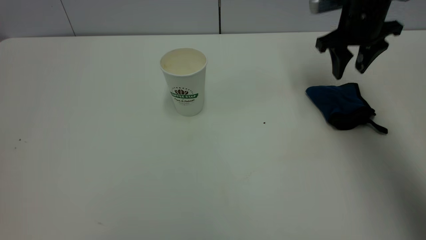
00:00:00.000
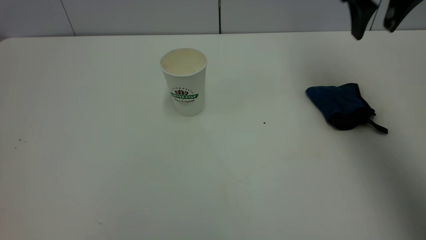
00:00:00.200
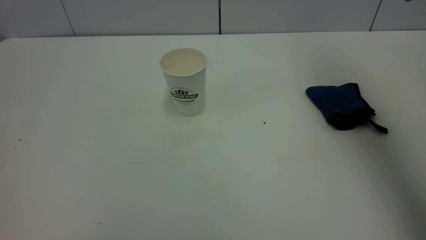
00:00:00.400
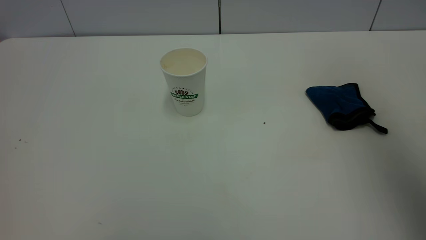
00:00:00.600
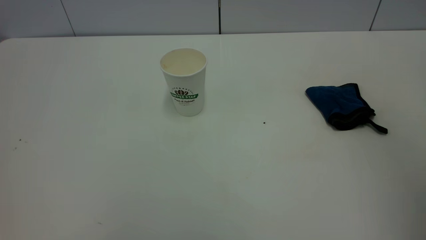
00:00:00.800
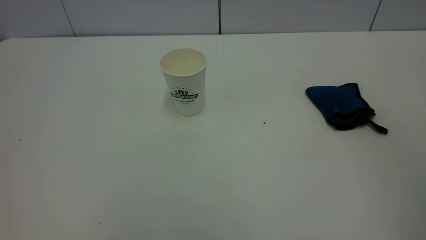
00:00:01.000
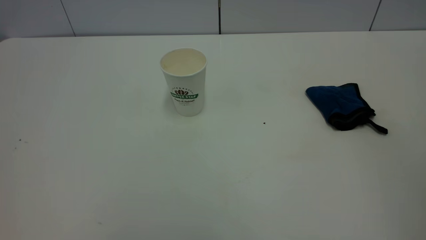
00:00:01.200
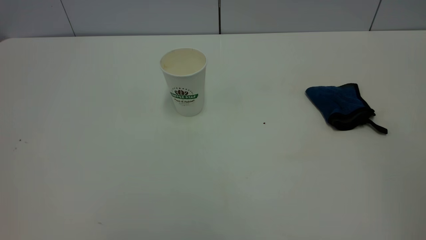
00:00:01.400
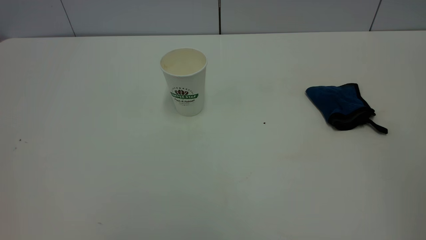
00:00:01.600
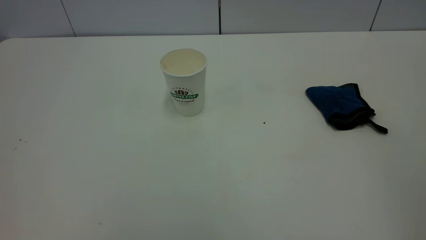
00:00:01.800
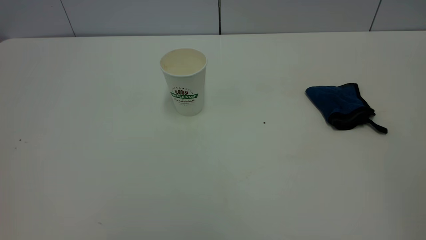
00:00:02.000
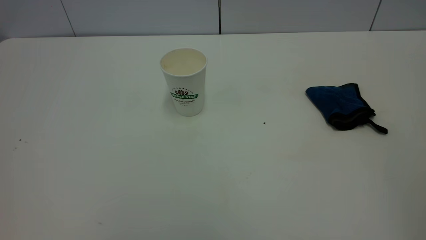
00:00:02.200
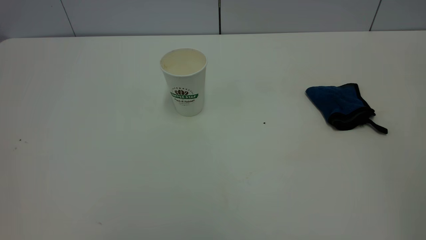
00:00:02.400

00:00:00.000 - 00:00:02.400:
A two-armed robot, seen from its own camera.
Task of the whole recording: the left gripper pick up the fallen cup and place it upright, the right gripper grasp the blue rag and wipe the tea stain on the table, the right gripper put the blue rag back in its original position.
00:00:00.000 - 00:00:01.200: The right gripper moves backward and upward, about 50 cm.

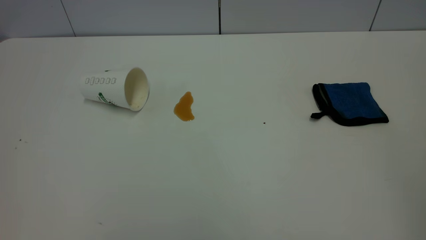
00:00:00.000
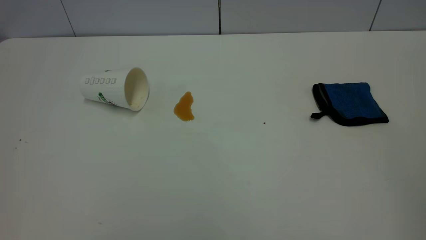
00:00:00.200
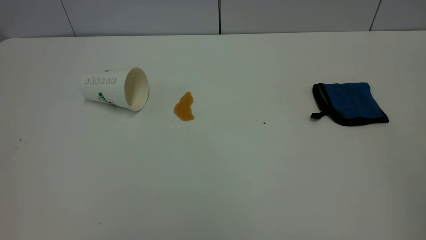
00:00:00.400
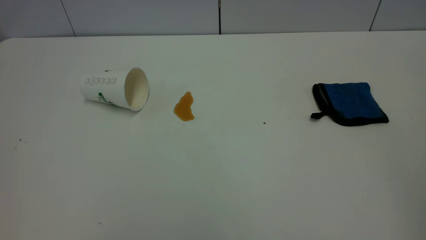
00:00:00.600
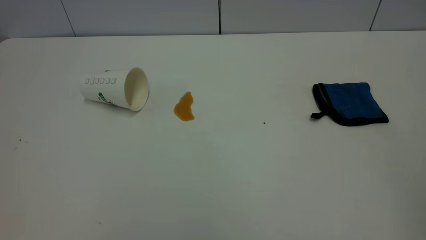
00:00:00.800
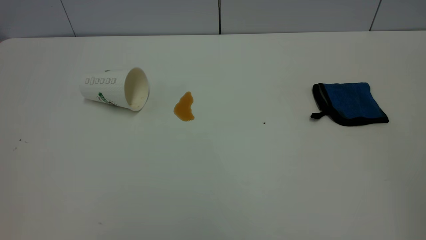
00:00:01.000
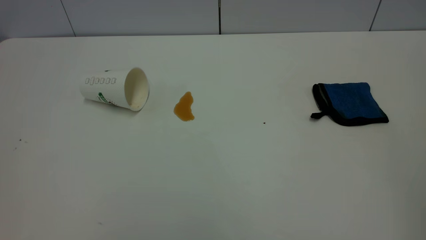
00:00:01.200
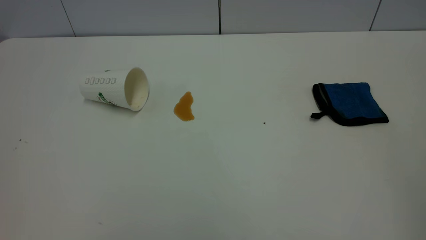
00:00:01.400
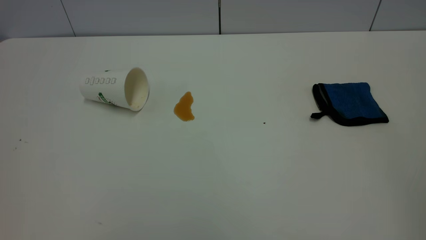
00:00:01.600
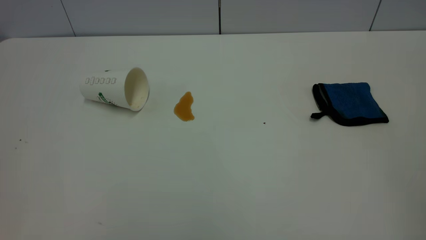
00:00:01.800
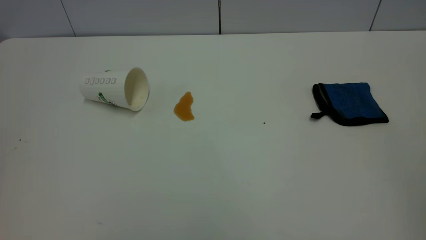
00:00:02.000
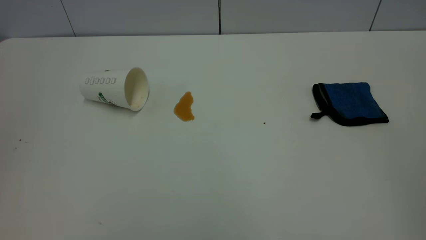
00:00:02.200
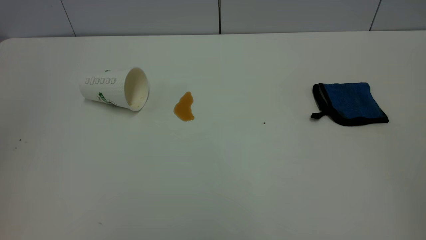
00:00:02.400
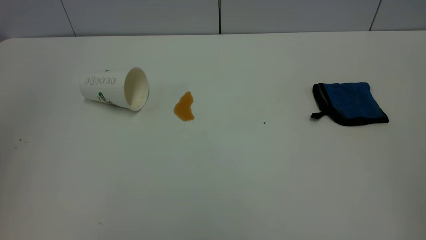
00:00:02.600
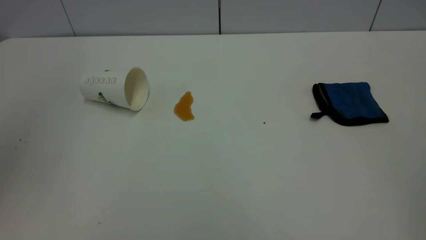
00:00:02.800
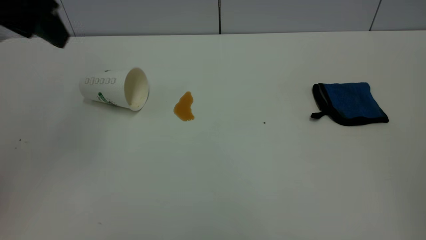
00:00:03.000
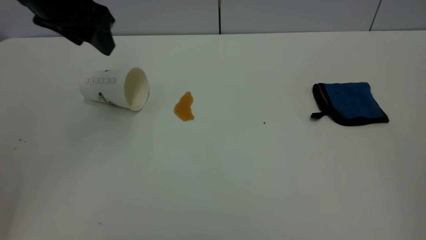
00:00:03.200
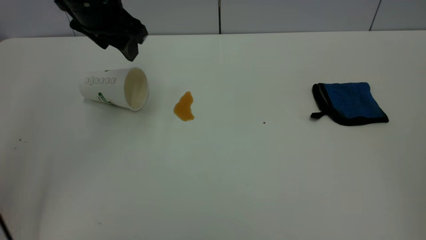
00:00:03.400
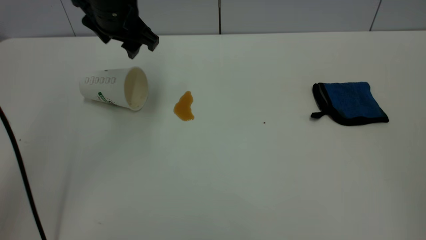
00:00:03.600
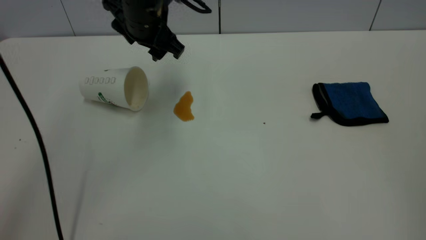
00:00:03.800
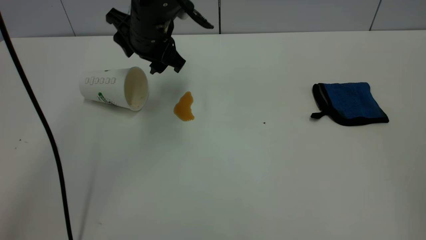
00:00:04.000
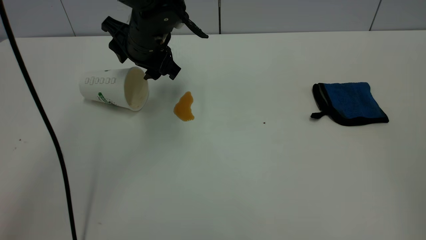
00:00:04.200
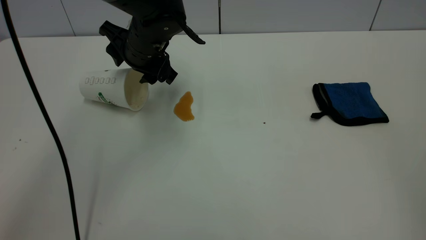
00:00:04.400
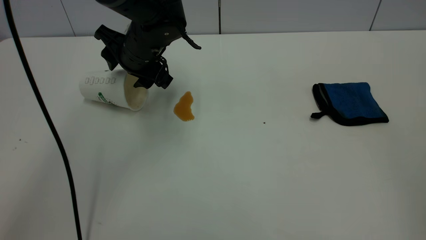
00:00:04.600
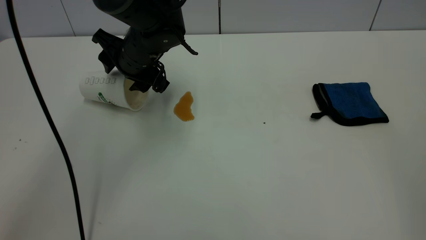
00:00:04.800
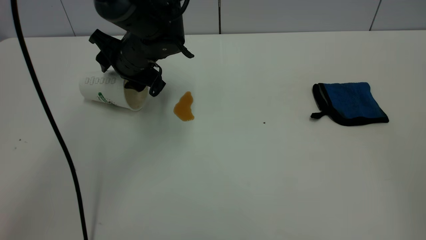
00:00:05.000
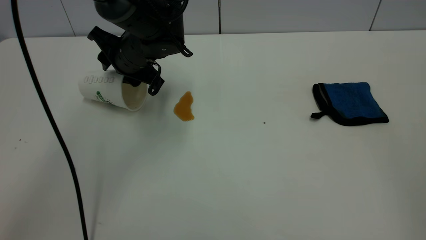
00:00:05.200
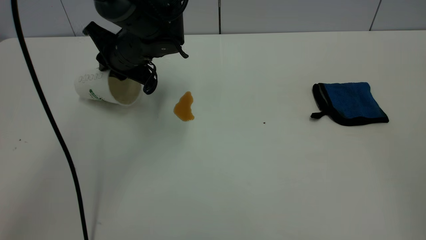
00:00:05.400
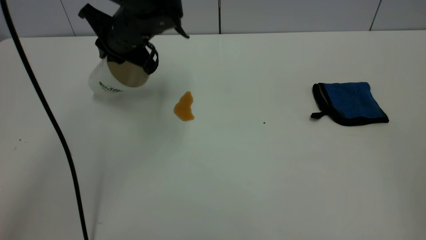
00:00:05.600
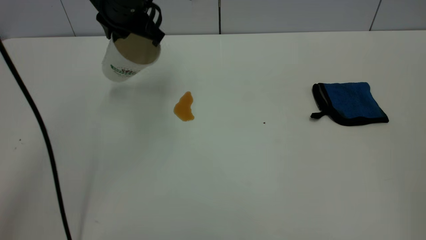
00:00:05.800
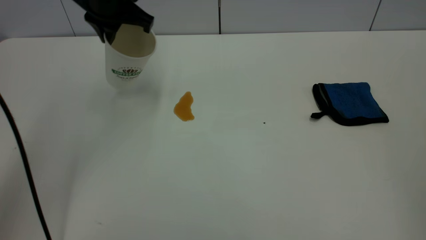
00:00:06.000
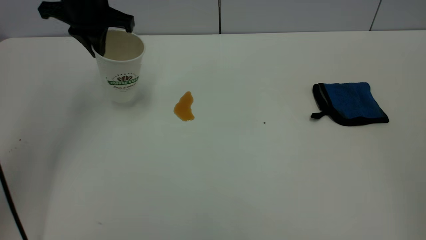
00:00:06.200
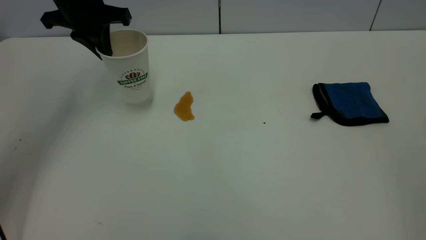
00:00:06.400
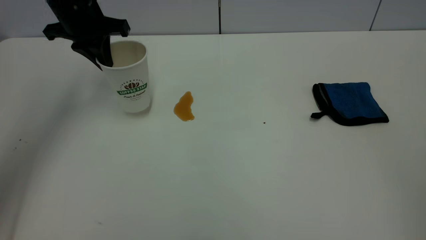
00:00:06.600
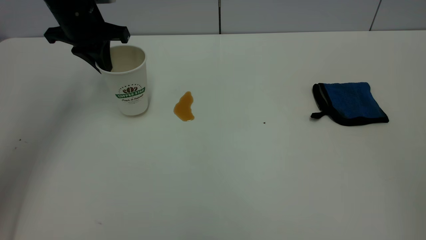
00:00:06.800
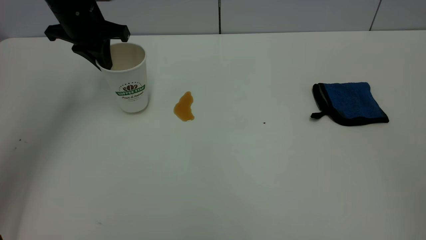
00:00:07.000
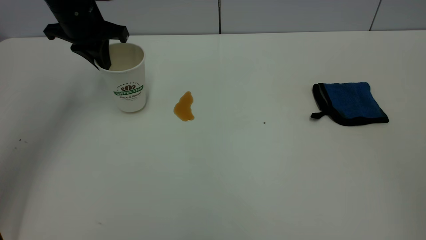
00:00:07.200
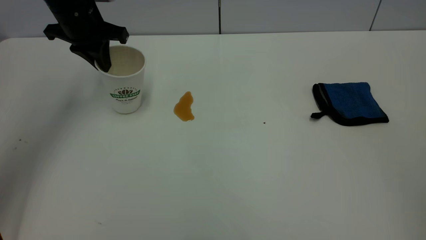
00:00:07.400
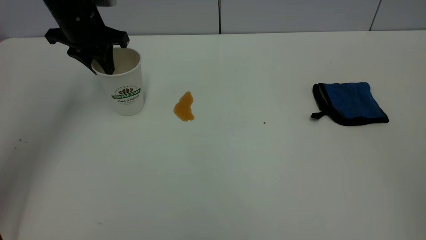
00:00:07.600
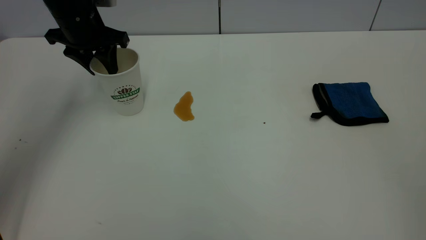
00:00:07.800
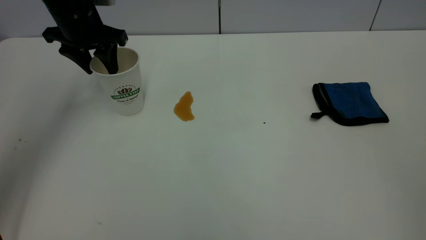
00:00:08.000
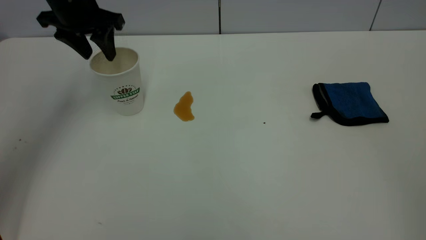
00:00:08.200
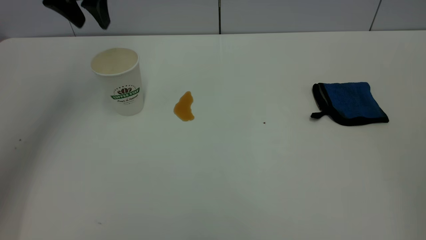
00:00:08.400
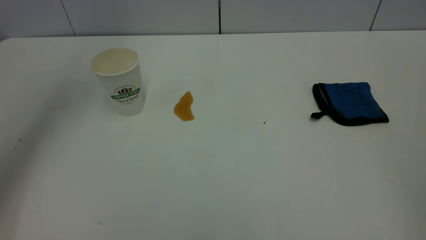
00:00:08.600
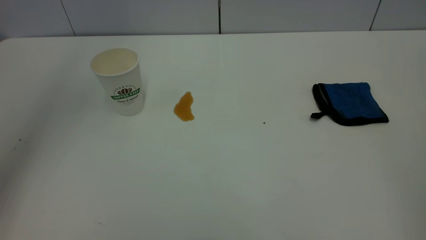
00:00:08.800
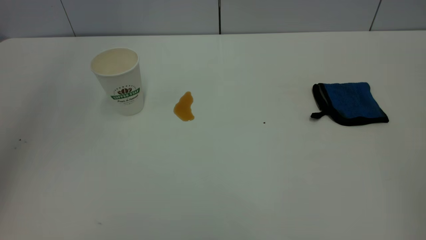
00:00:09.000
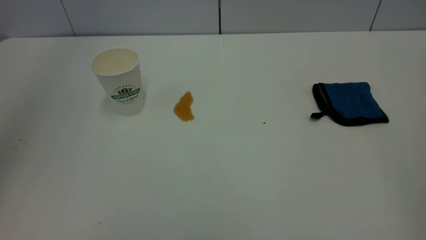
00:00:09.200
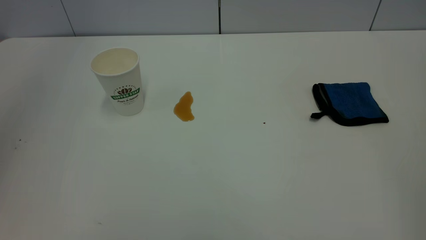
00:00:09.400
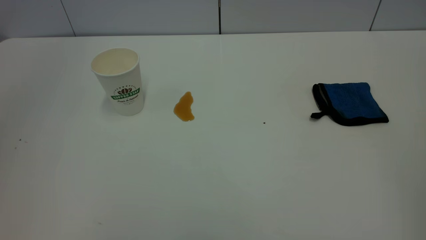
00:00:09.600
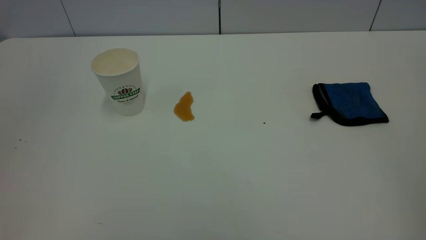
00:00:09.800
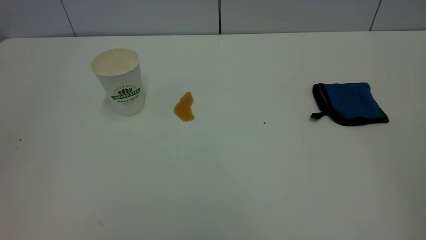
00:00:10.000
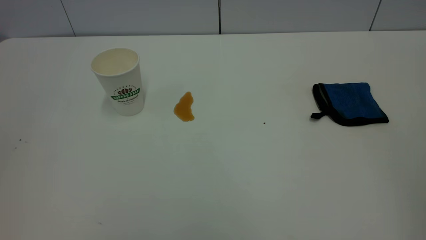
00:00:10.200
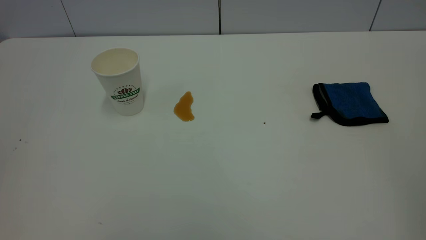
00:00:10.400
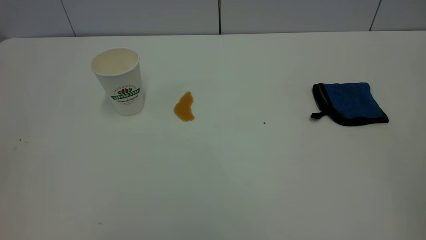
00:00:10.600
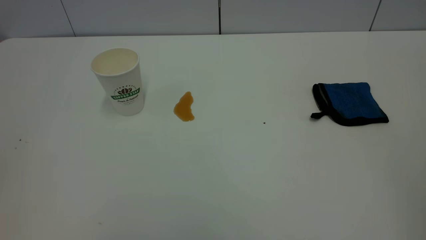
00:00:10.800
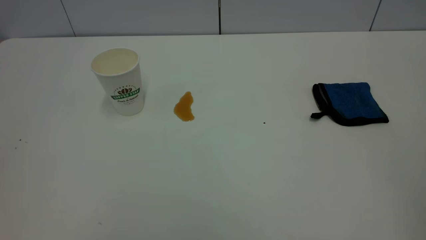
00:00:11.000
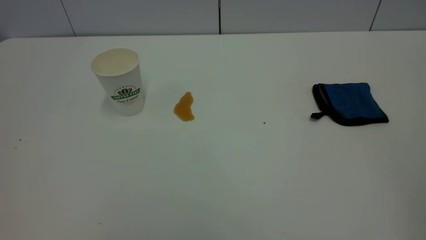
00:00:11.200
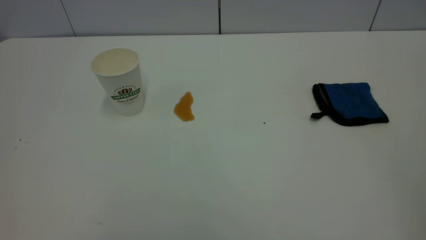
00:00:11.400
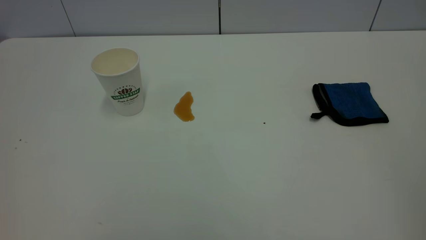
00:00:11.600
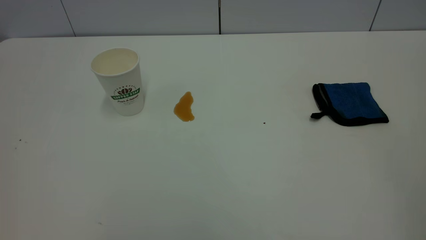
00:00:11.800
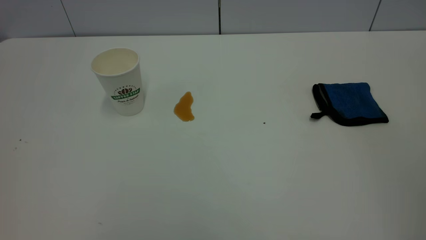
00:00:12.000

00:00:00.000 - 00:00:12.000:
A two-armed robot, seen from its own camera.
Task of the whole recording: the left gripper pick up the fallen cup and place it upright, the right gripper grasp the blue rag and wipe the tea stain on the table, the right gripper put the blue rag back in its original position.
Step, 00:00:00.000 - 00:00:08.200: Stand the paper cup upright.
00:00:00.000 - 00:00:01.600: Both grippers stay about where they are.
00:00:01.600 - 00:00:03.000: The left gripper moves forward, approximately 35 cm, and opens its fingers.
00:00:03.000 - 00:00:04.400: The left gripper moves downward, to the right and forward, approximately 25 cm.
00:00:04.400 - 00:00:06.000: The left gripper shifts some 10 cm upward and to the left, and closes up.
00:00:06.000 - 00:00:07.600: The left gripper is displaced to the left by approximately 5 cm, and opens.
00:00:07.600 - 00:00:09.000: The left gripper is displaced upward and backward by roughly 30 cm, and opens up.

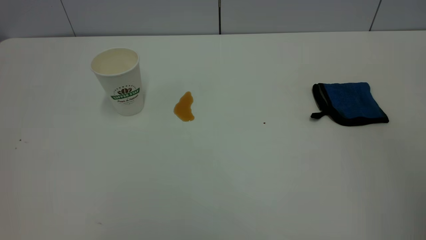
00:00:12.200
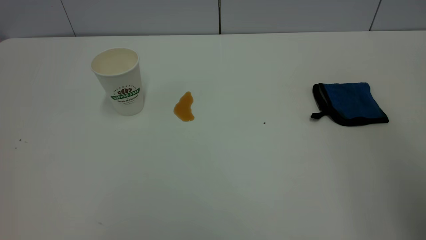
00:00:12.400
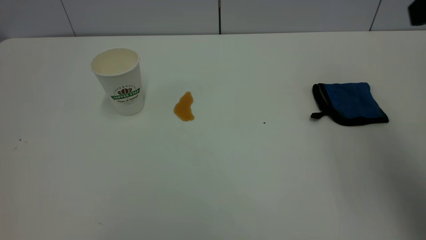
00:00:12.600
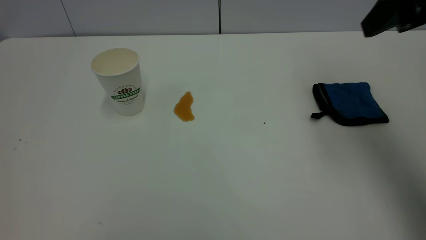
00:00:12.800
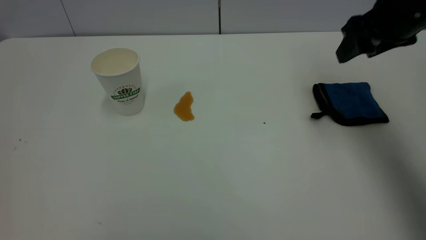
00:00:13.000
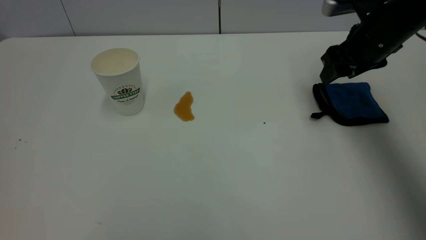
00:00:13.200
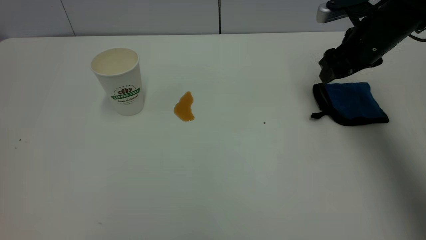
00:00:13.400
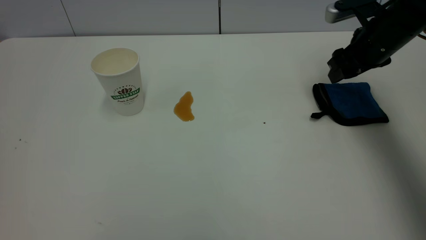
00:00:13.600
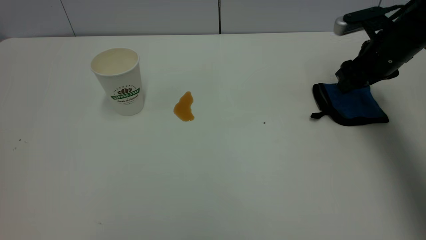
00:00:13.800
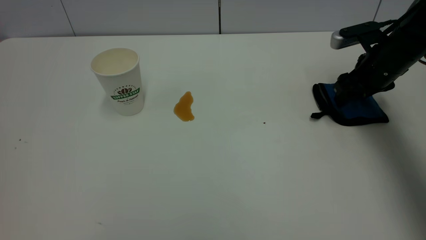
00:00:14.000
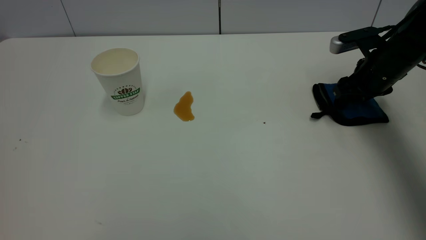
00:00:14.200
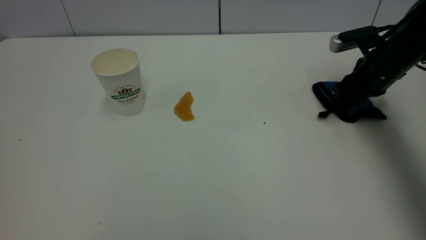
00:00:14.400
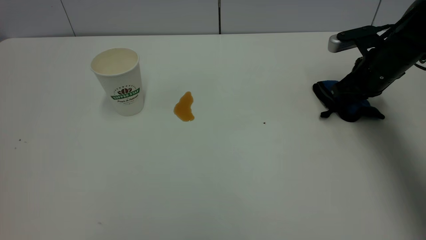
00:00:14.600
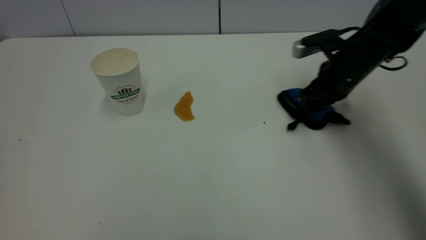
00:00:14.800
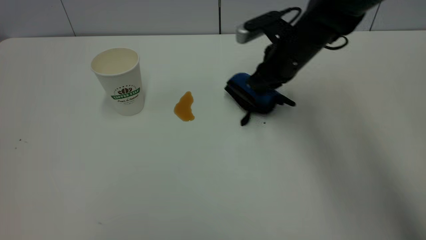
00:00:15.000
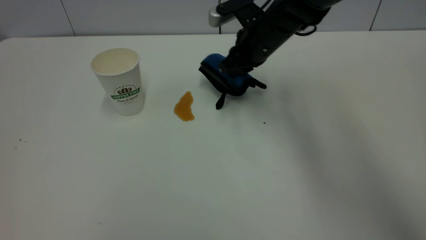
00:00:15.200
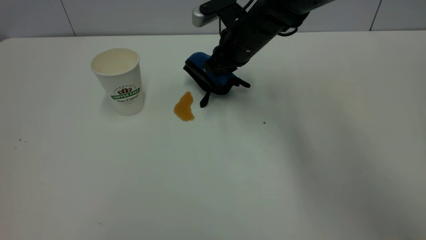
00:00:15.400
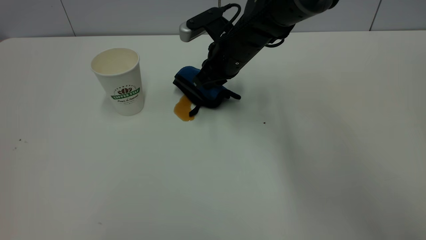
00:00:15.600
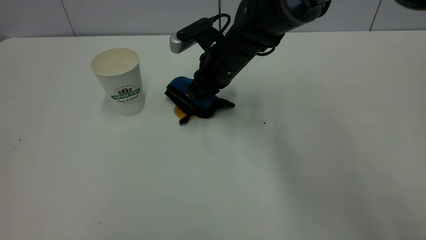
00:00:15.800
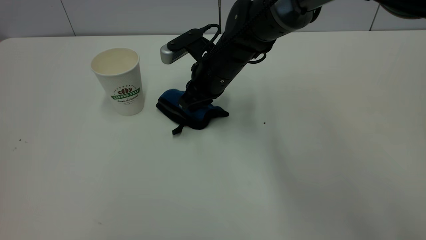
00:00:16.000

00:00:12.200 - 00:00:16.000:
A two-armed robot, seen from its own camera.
Task of the whole recording: the left gripper pick up the fallen cup and place it upright, the right gripper grasp the blue rag and wipe the tea stain on the table, the right gripper put the blue rag back in its original position.
00:00:12.200 - 00:00:13.400: The right gripper travels forward and downward by about 40 cm.
00:00:13.400 - 00:00:14.800: The right gripper is displaced to the left by approximately 5 cm, and closes its fingers.
00:00:14.800 - 00:00:16.000: The right gripper is displaced to the left by approximately 20 cm.